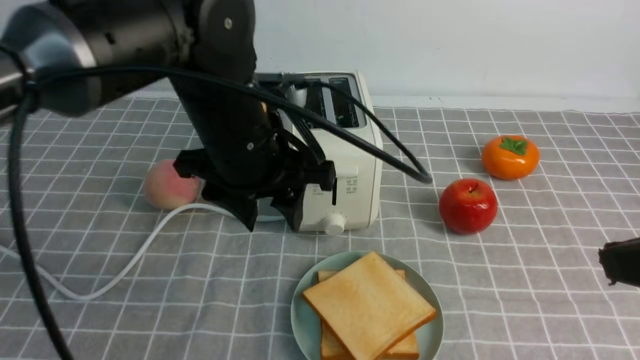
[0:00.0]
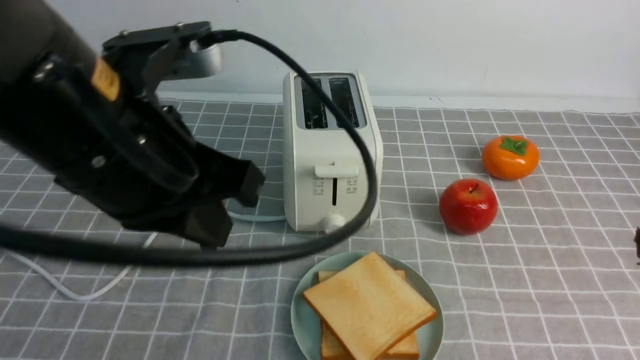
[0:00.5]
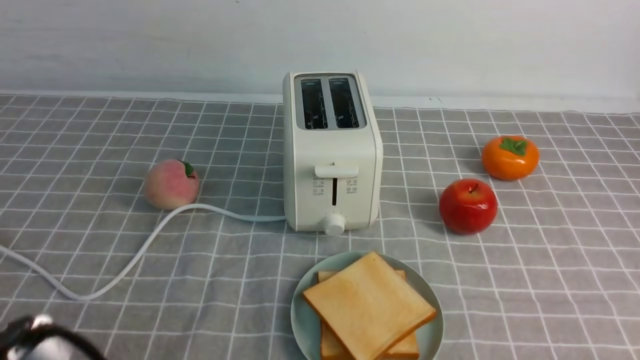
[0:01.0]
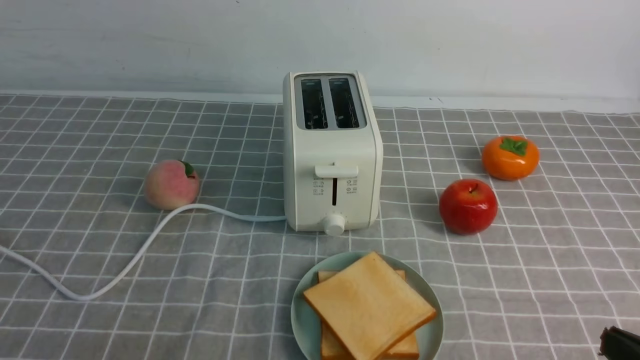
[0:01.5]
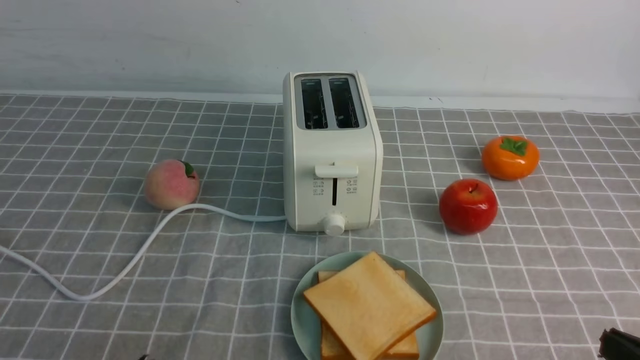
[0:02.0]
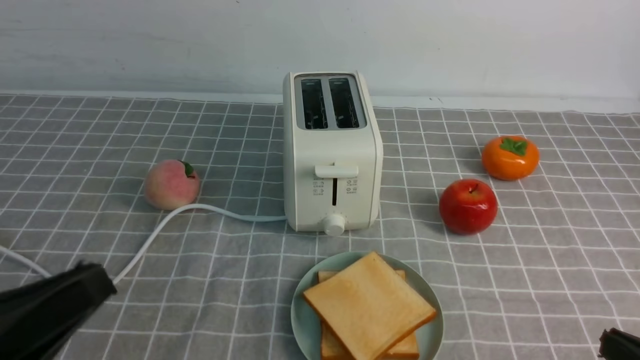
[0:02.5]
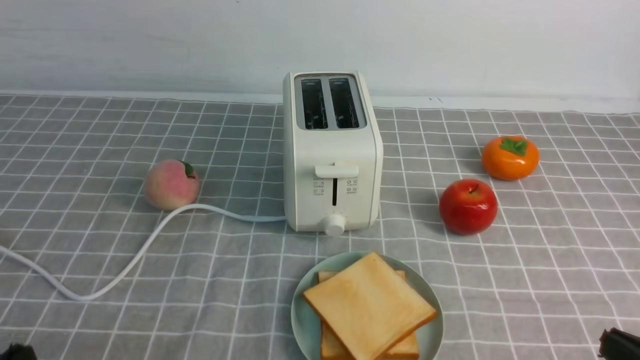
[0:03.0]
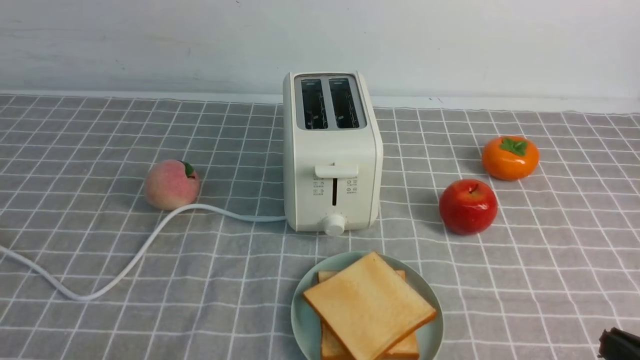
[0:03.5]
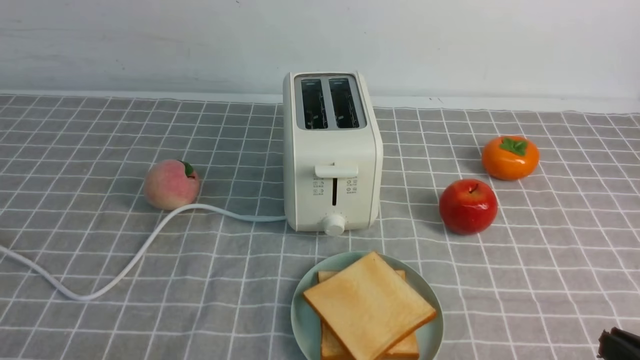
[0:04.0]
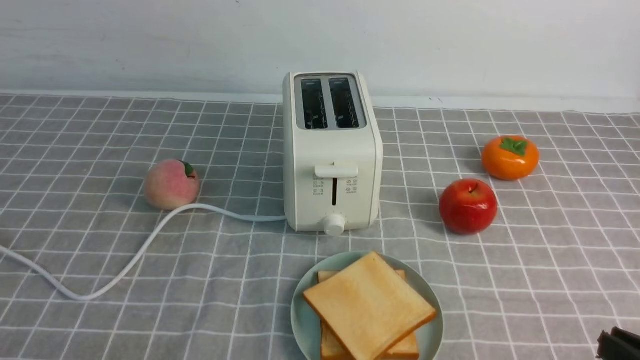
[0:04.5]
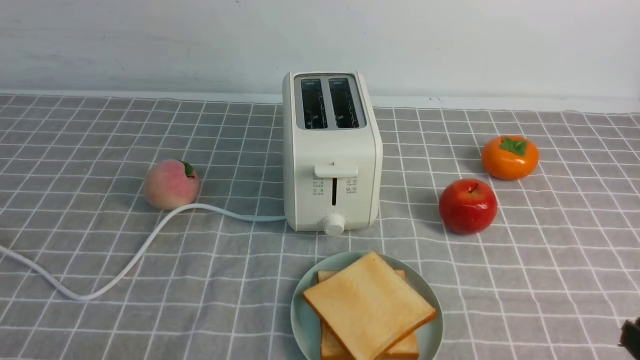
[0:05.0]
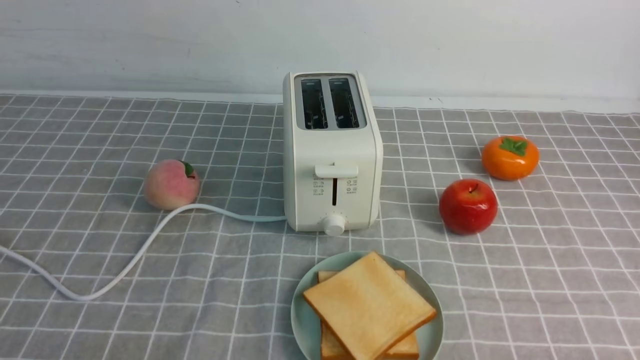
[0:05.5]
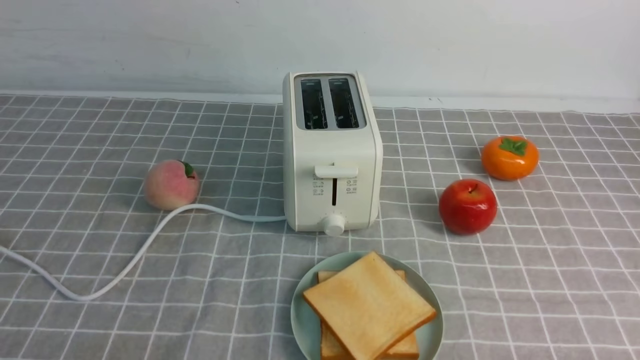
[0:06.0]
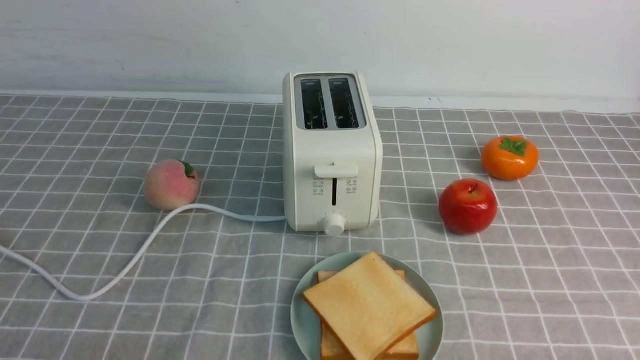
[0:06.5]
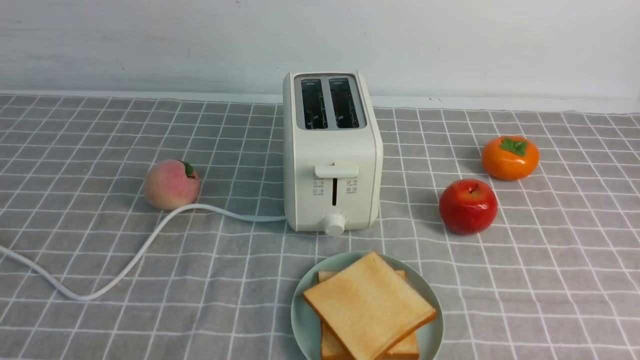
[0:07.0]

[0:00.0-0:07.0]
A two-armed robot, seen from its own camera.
Task of the whole recording: take toasted bread from bread machine on grey coffee table place on plate.
0:00.0 to 0:02.0: The right gripper heads downward, covering approximately 15 cm; the left gripper moves backward and to the left, approximately 30 cm, and closes its fingers.
0:02.0 to 0:03.5: The left gripper heads downward and to the left, covering roughly 15 cm.
